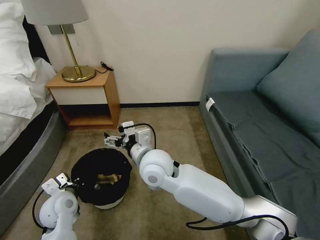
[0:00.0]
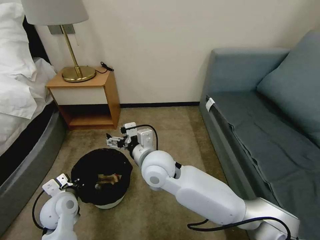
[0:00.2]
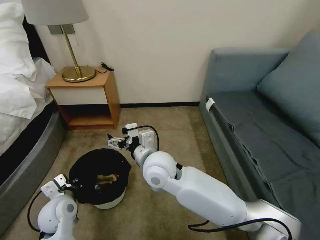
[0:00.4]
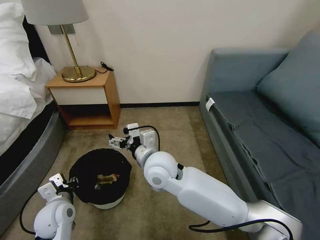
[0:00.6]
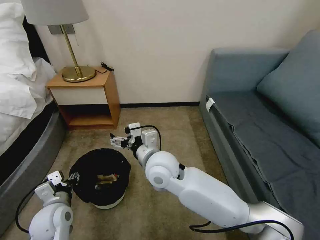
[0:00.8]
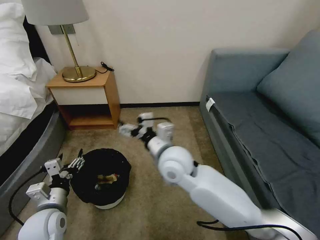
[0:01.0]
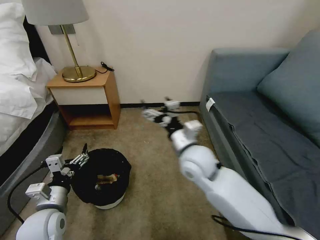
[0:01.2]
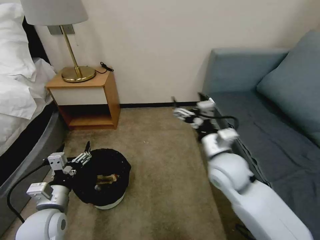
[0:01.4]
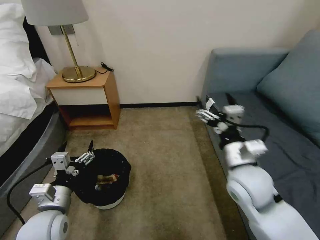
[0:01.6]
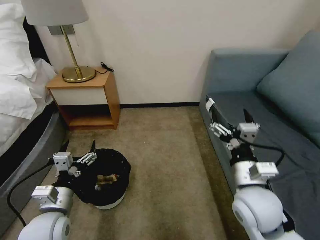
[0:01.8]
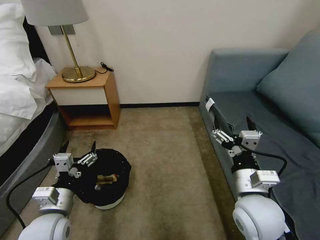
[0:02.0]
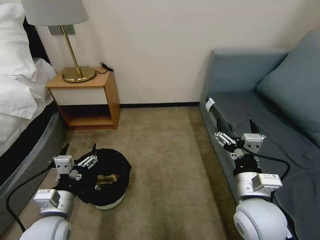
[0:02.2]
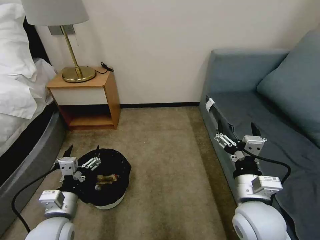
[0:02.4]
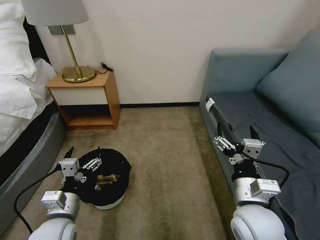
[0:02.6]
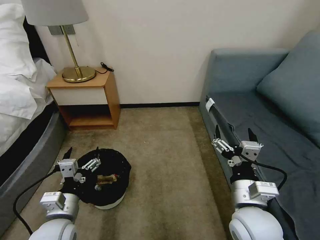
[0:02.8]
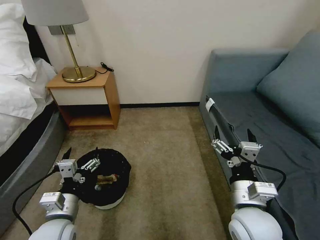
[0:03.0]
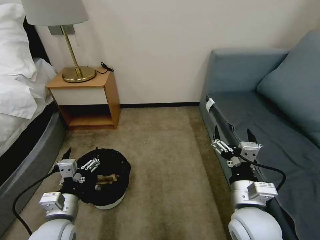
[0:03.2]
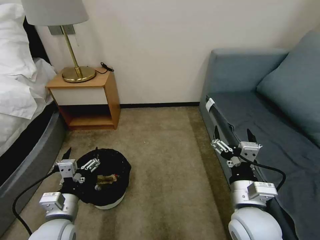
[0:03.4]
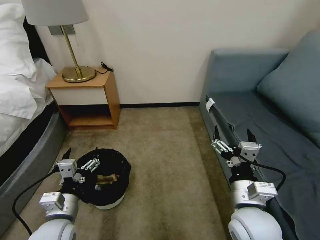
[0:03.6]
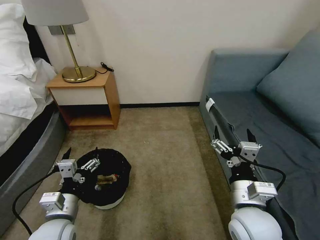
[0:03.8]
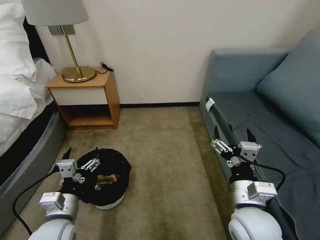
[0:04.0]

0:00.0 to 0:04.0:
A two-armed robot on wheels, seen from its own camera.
Task of the whole recording: Pick up the trash bin, then pick up the garbage on the floor and place it into the trash bin.
0:00.0 to 0:01.4: The right gripper shifts about 20 cm to the right. Meanwhile the left gripper is displaced backward by roughly 5 cm, and opens its fingers.
0:01.4 to 0:02.6: The right gripper travels backward by about 10 cm.
0:02.6 to 0:04.0: Neither gripper changes place.
